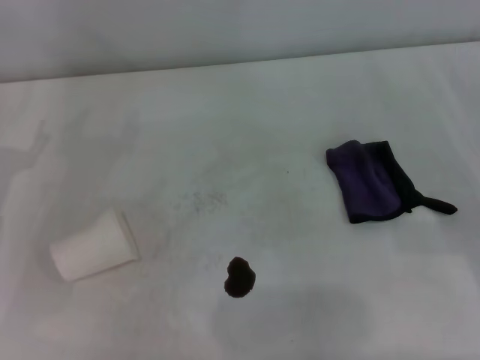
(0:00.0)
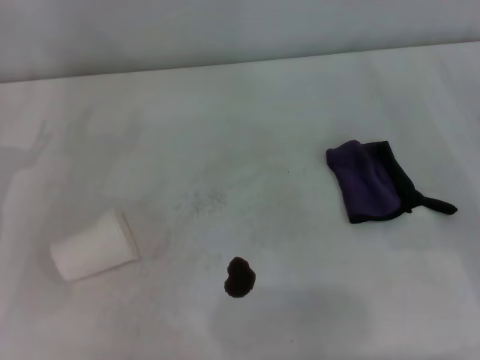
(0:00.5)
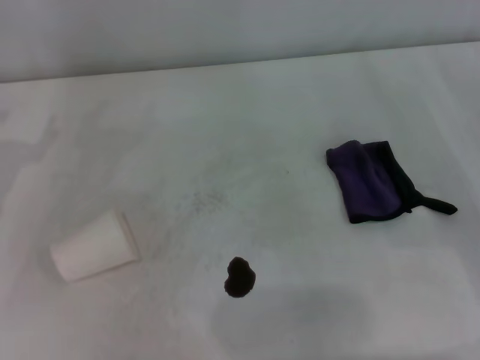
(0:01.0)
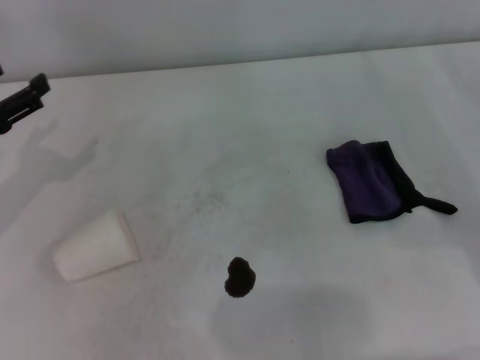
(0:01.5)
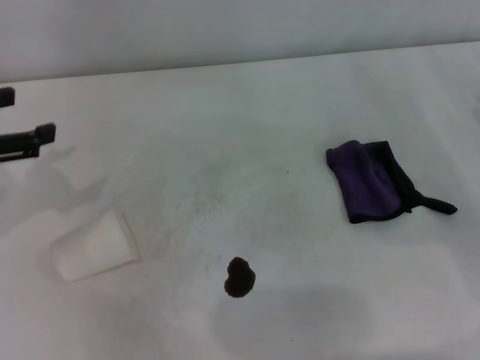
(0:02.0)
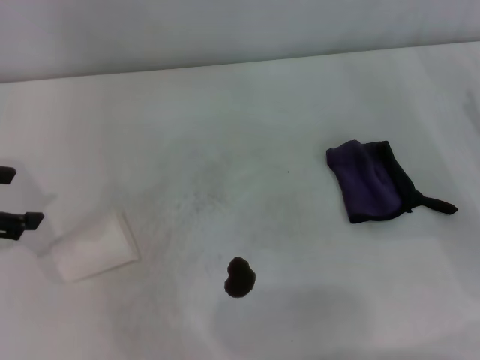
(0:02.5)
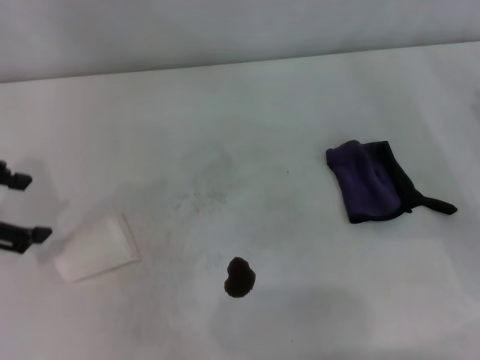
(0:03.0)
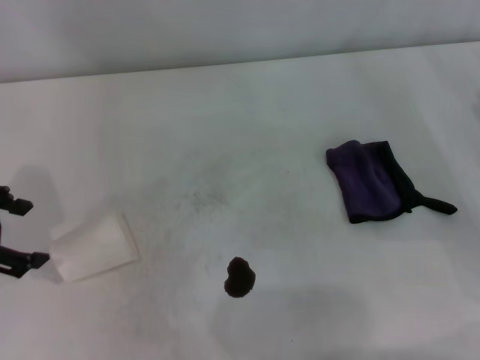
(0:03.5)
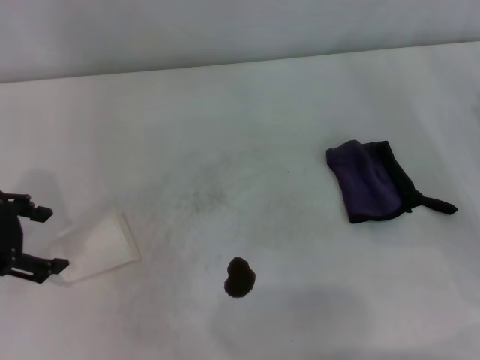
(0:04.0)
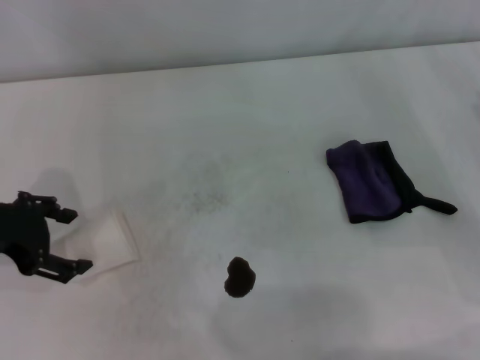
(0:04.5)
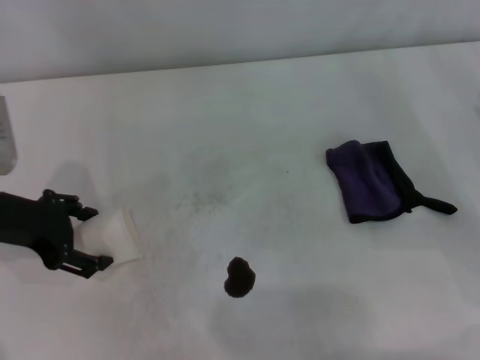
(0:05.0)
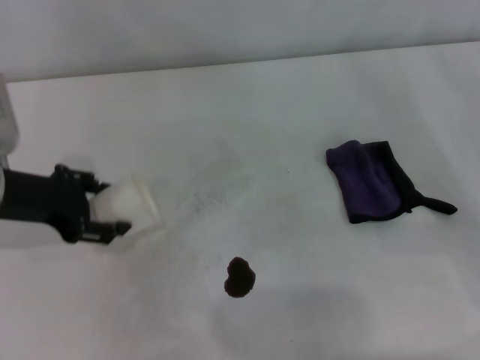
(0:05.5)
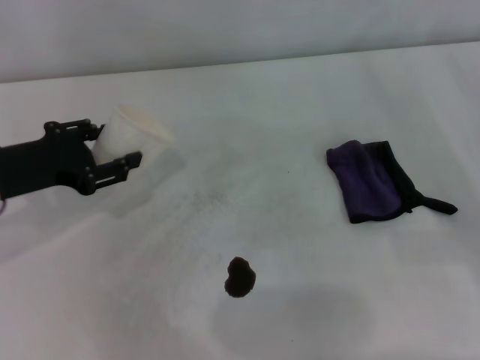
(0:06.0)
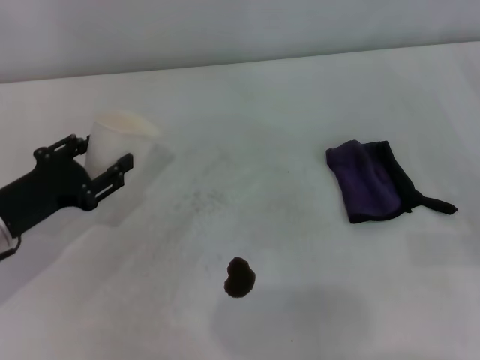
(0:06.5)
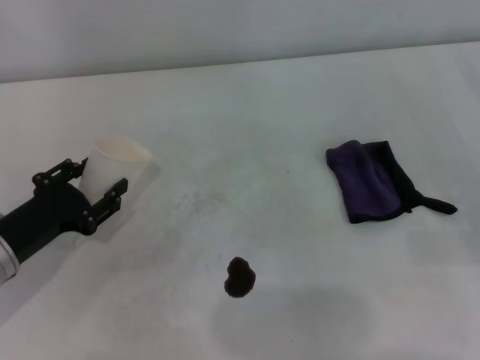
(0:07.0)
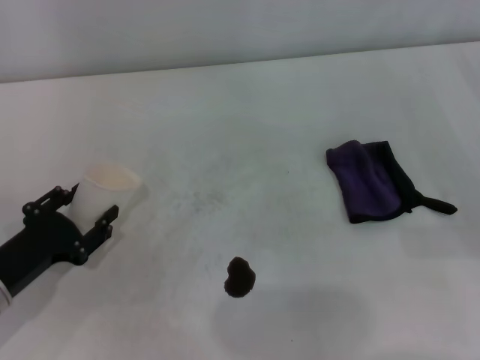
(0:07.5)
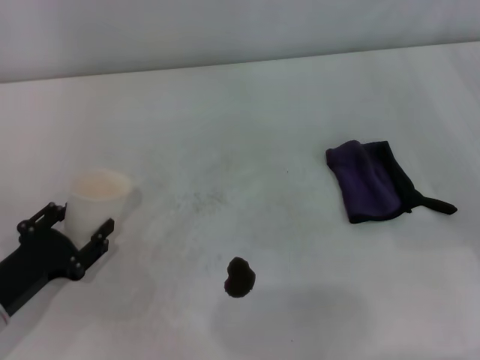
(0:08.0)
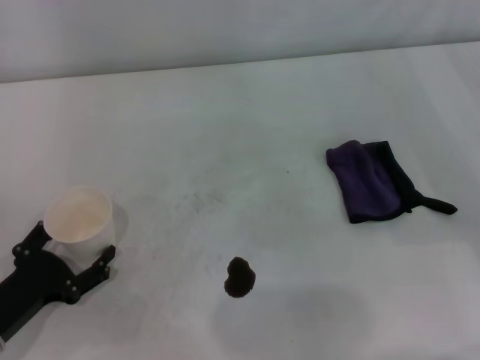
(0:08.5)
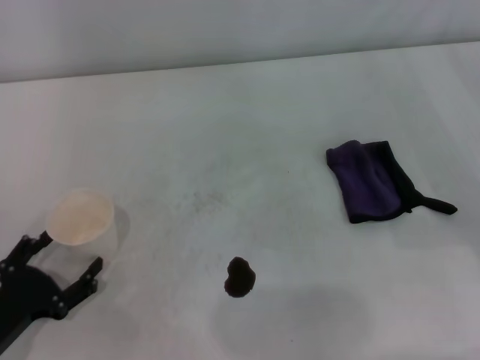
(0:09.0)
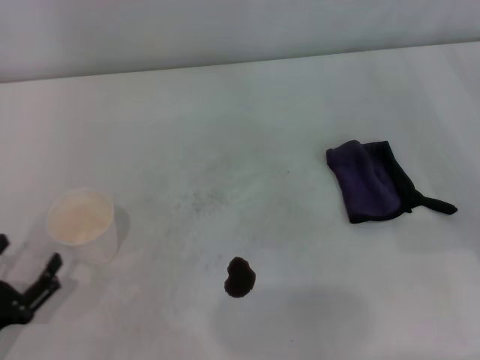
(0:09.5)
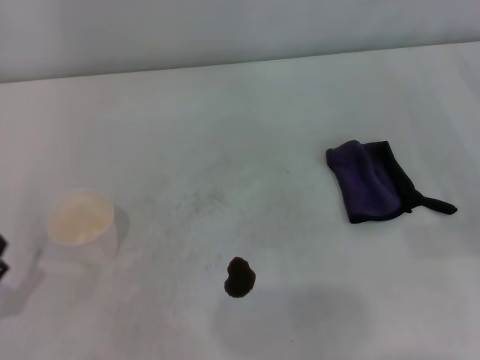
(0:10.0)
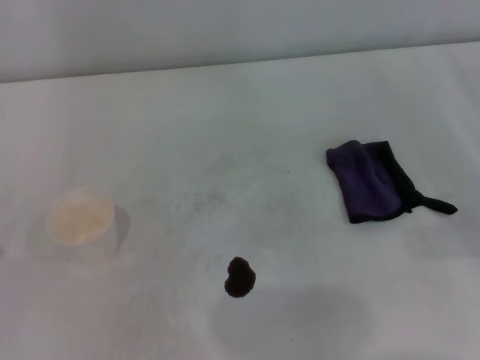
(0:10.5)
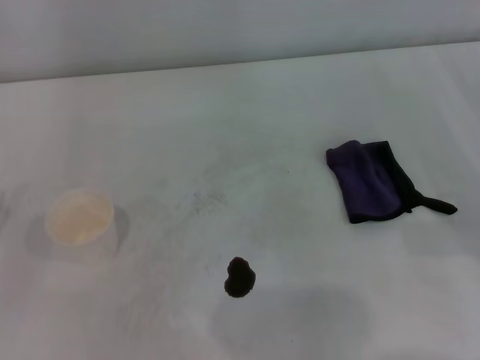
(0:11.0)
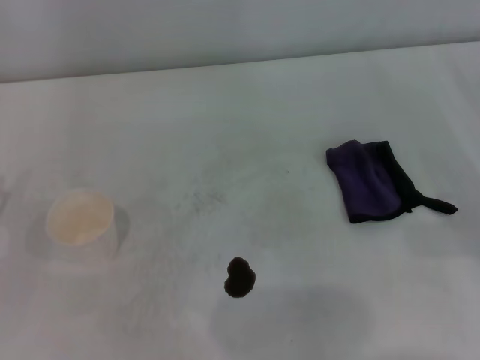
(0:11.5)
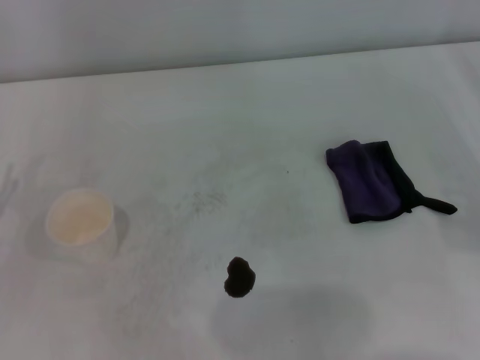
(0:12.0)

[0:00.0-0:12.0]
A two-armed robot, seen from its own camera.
Step, 0:00.0 to 0:05.0: Grasp the paper cup with the left gripper.
Step, 0:05.5 to 0:08.5: Stand the paper cup upright with the left gripper.
0:00.0 to 0:02.0: The left gripper travels upward by approximately 10 cm.
0:04.0 to 0:06.0: The left gripper moves roughly 5 cm, and closes.
0:06.0 to 0:08.0: The left gripper is displaced downward and backward by about 15 cm.
0:08.0 to 0:10.0: The left gripper shifts roughly 10 cm backward, and opens its fingers.

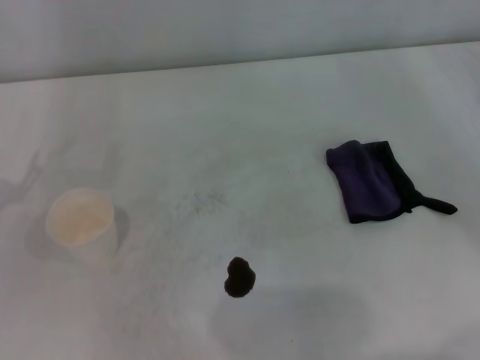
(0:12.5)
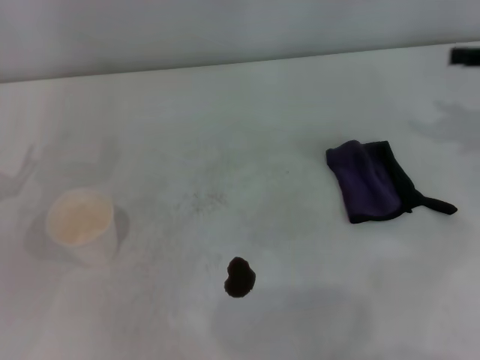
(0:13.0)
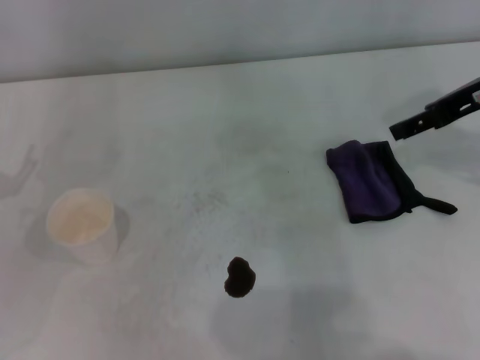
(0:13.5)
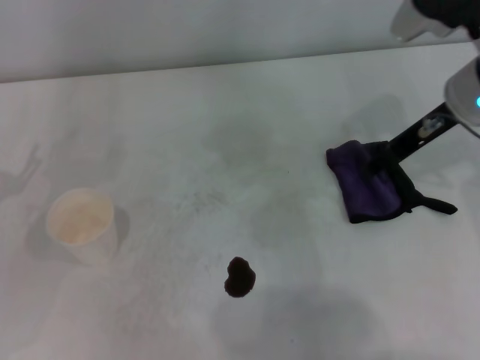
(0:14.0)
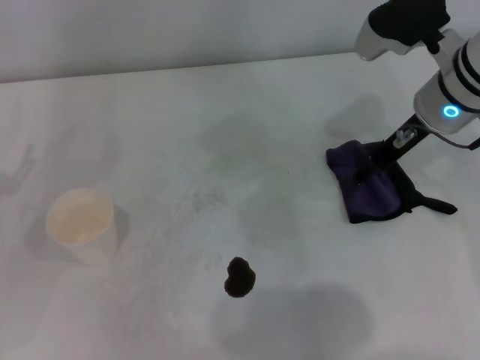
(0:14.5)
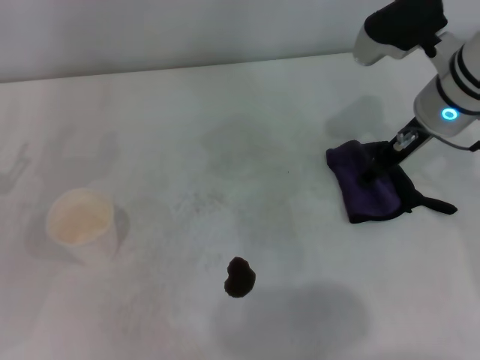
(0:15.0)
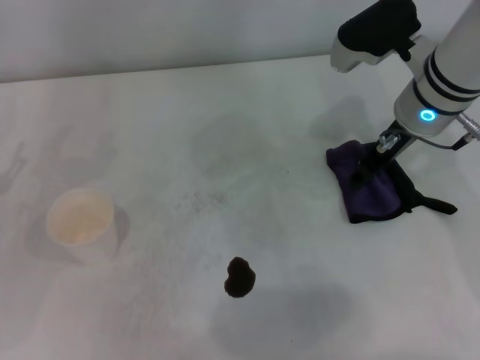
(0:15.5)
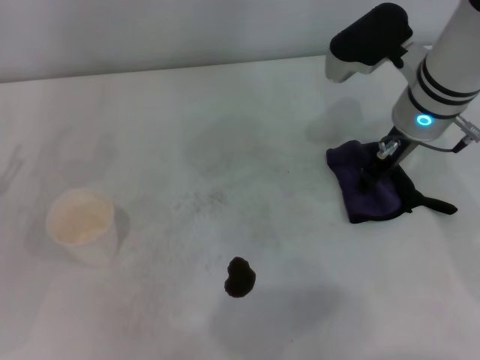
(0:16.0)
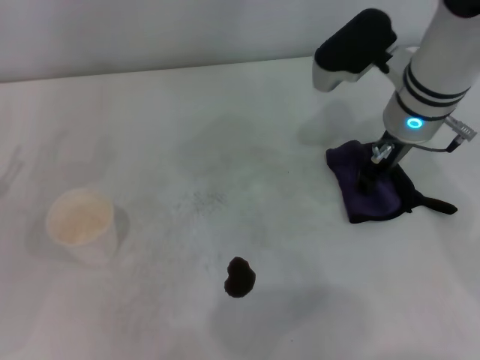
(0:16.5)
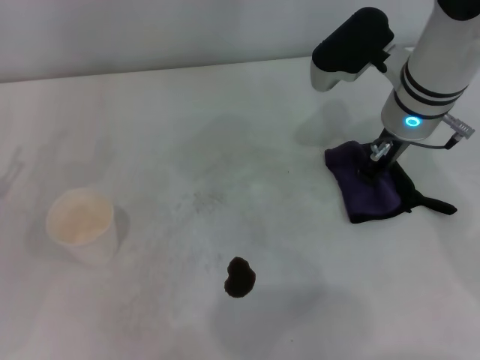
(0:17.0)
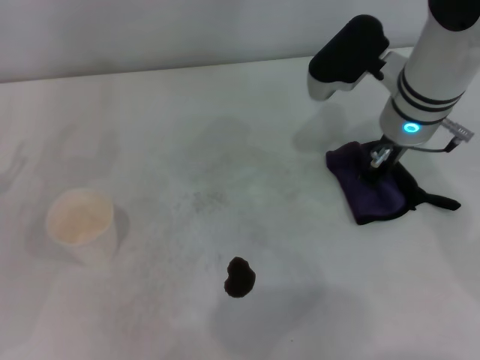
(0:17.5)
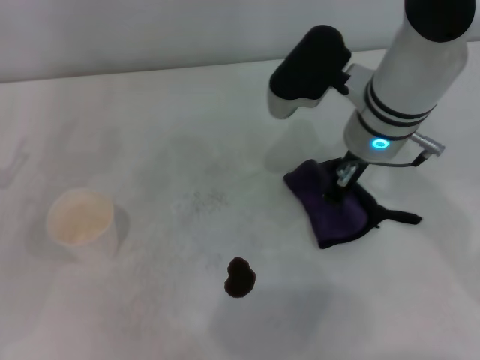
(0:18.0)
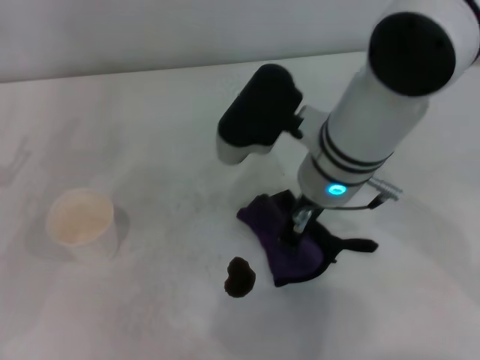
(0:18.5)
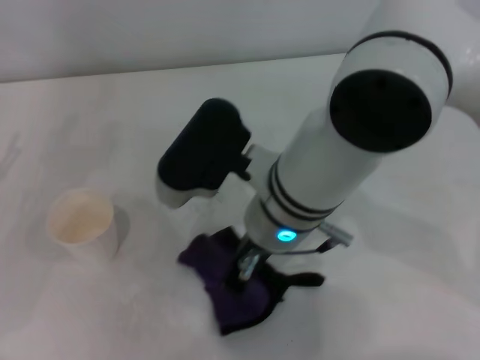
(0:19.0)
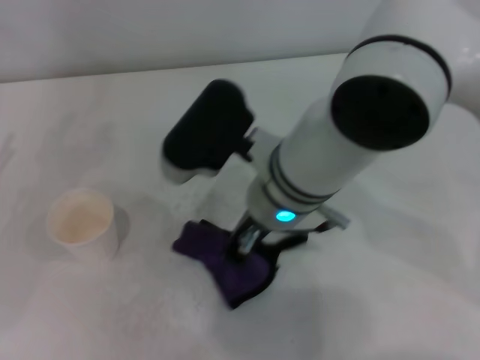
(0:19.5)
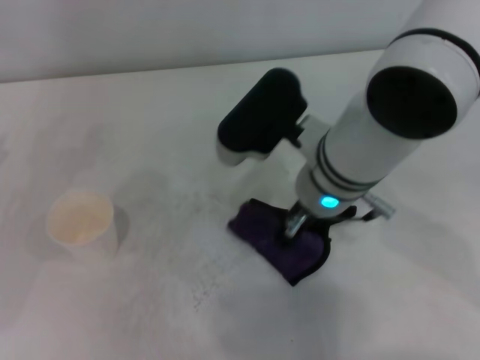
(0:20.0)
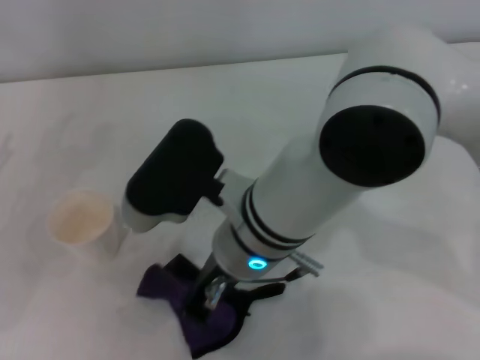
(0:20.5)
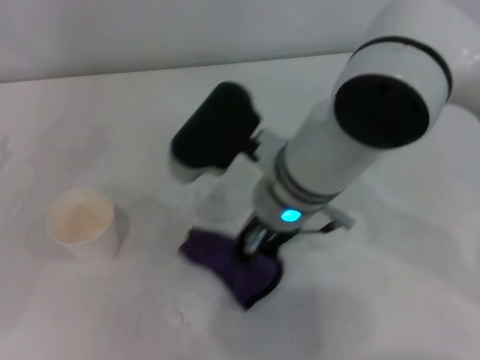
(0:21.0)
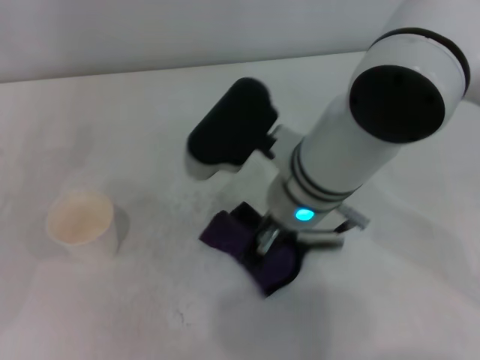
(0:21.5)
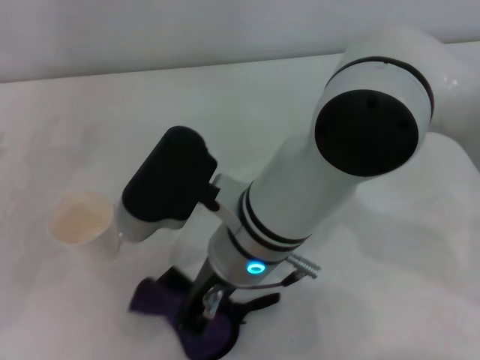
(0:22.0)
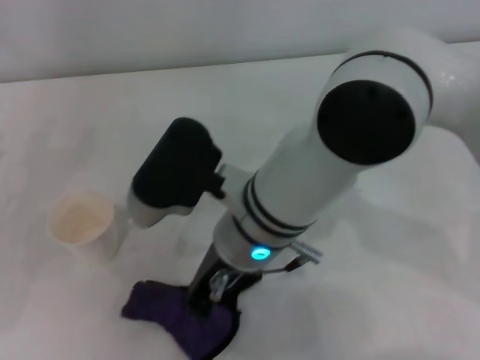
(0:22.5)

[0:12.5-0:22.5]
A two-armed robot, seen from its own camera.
Step, 0:12.5 to 0:17.0: Grasp the rag with the right gripper.
0:12.5 to 0:14.5: The right gripper goes roughly 25 cm to the left and forward.
0:14.5 to 0:16.5: The right gripper closes.
0:16.5 to 0:18.5: The right gripper travels to the left and backward by approximately 10 cm, and closes up.
0:18.5 to 0:20.5: The right gripper moves left and right over some 5 cm, changing direction 2 times.

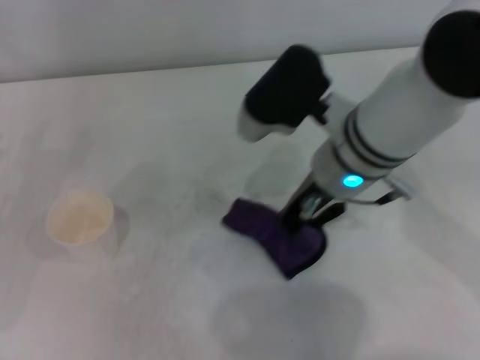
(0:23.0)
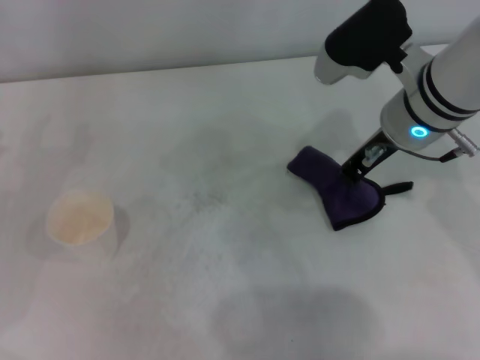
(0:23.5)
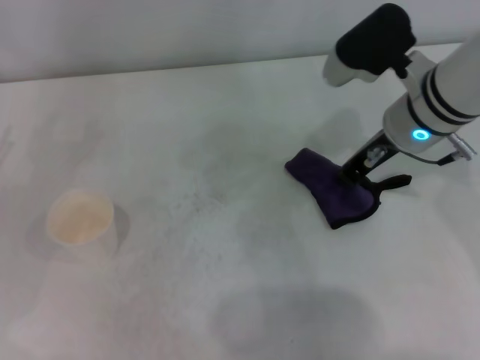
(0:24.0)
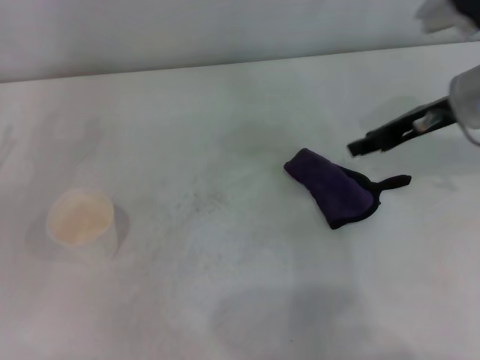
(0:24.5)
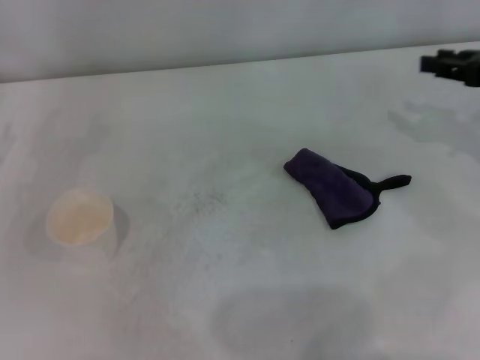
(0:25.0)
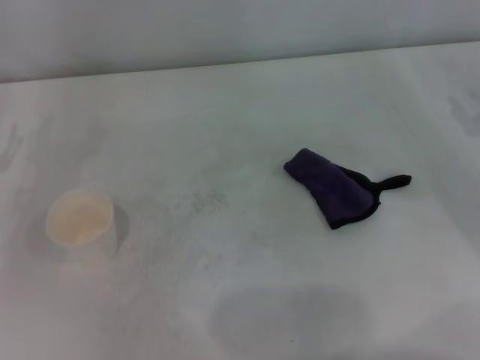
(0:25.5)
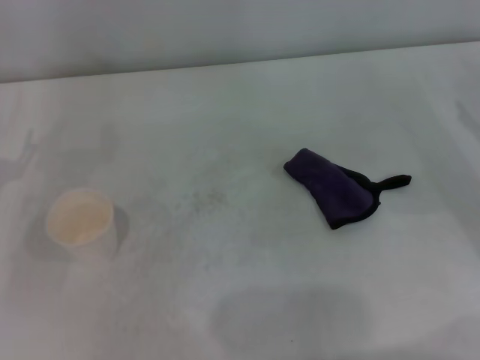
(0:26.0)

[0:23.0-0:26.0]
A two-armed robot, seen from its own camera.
Step, 0:23.5 to 0:24.0: Place the rag on the table with the right gripper.
0:23.0 to 0:24.5: The right gripper goes approximately 15 cm to the right, and opens its fingers.
0:24.5 to 0:26.0: The right gripper heads to the right, backward and downward, covering about 20 cm.
